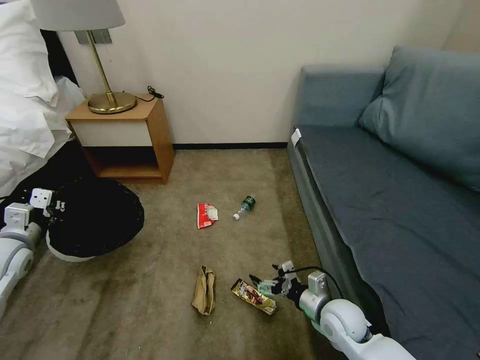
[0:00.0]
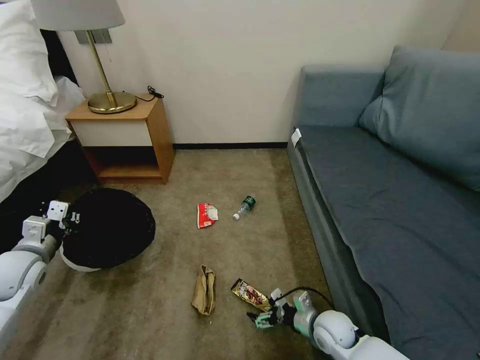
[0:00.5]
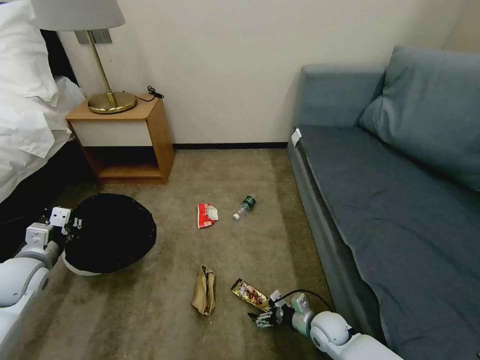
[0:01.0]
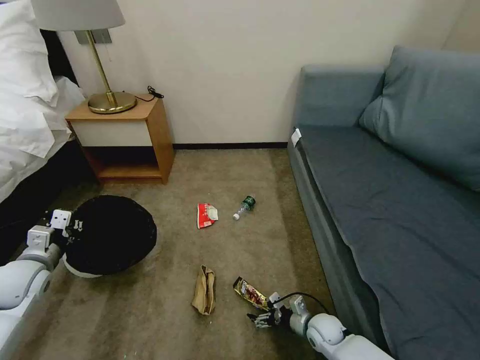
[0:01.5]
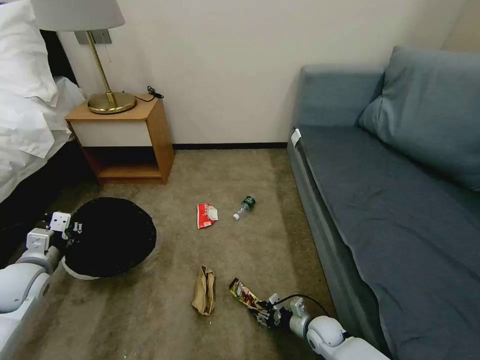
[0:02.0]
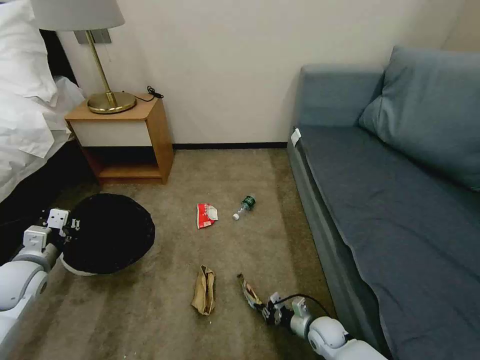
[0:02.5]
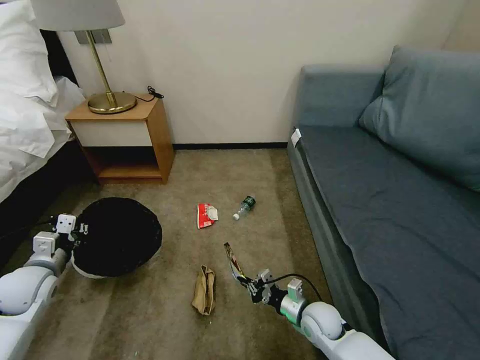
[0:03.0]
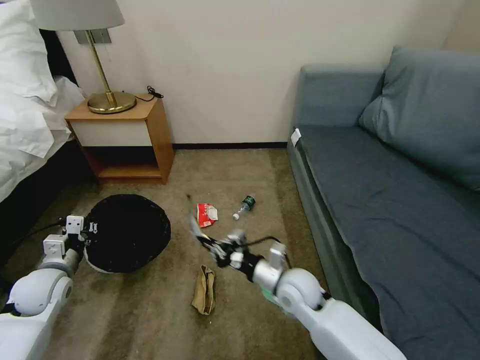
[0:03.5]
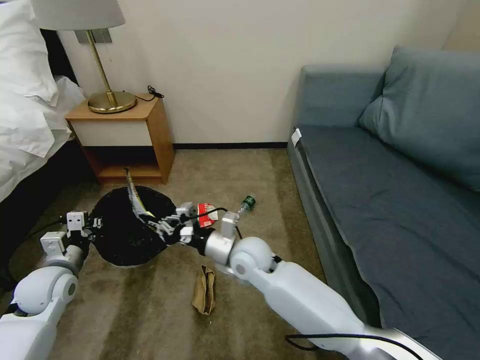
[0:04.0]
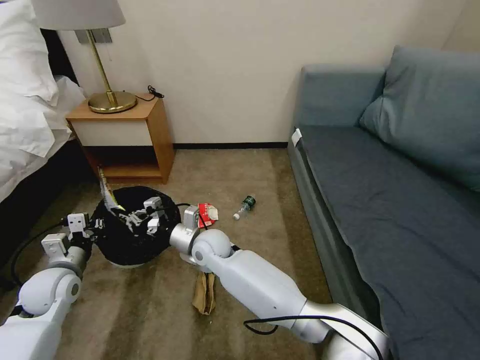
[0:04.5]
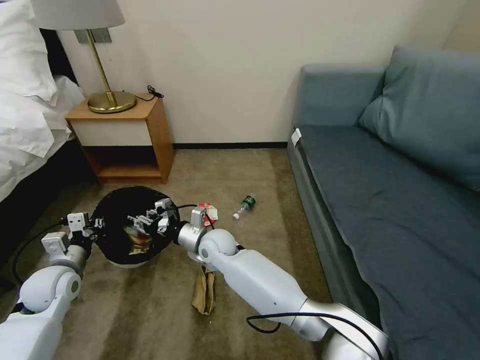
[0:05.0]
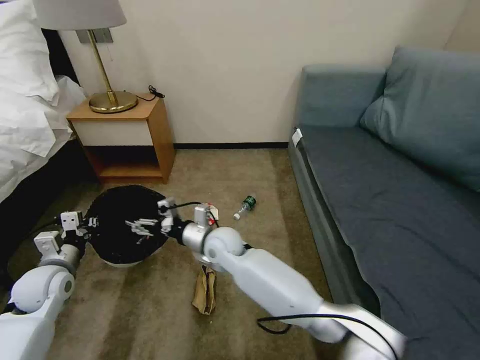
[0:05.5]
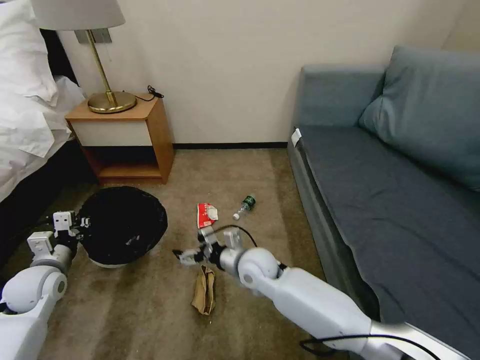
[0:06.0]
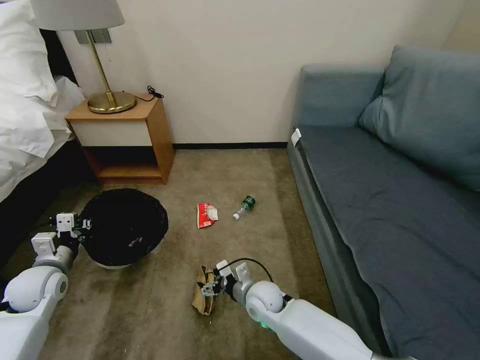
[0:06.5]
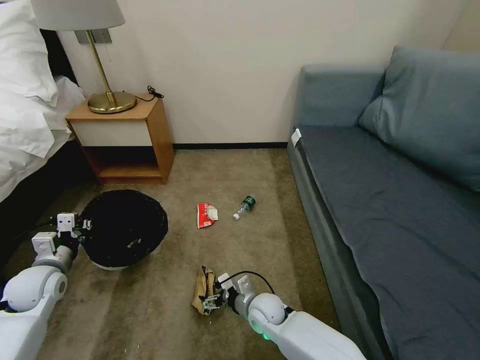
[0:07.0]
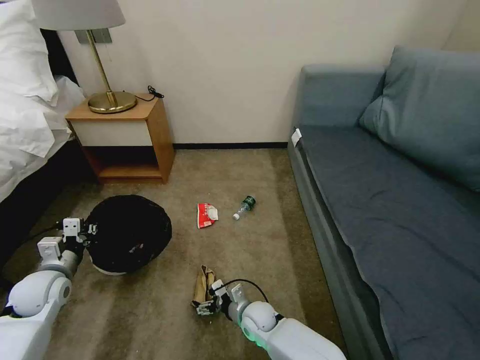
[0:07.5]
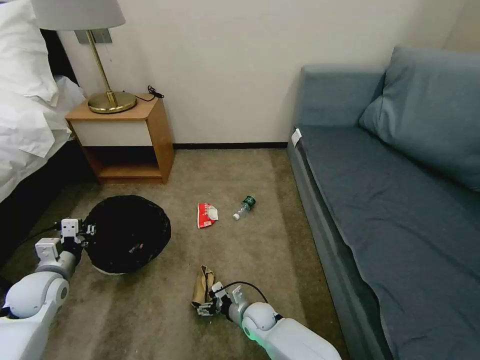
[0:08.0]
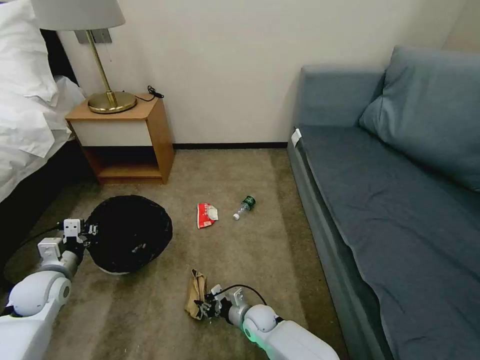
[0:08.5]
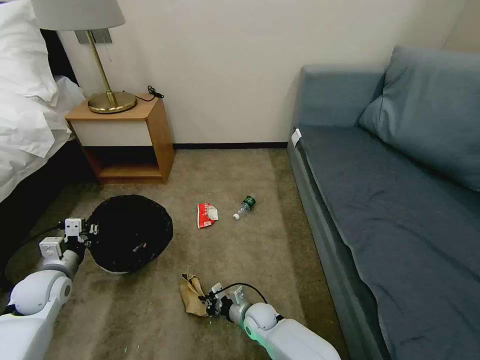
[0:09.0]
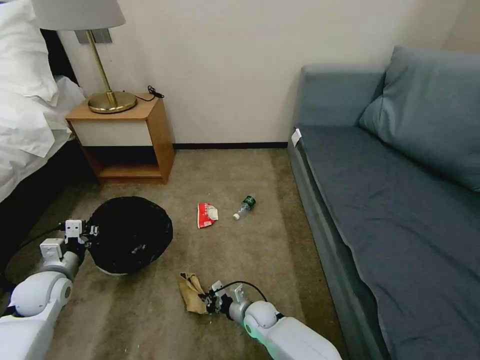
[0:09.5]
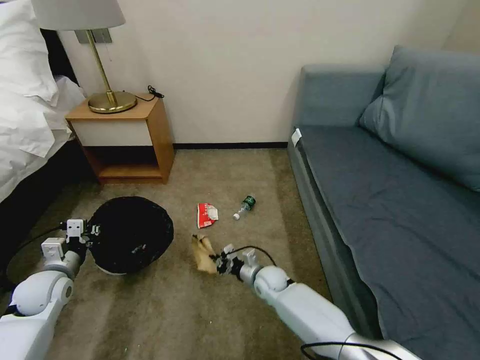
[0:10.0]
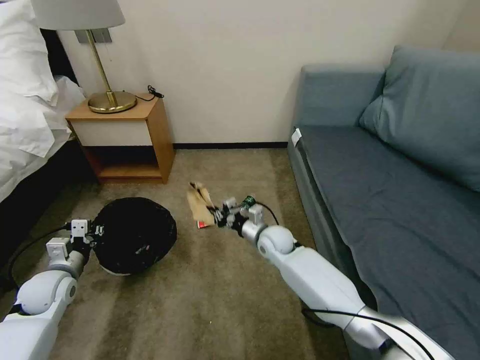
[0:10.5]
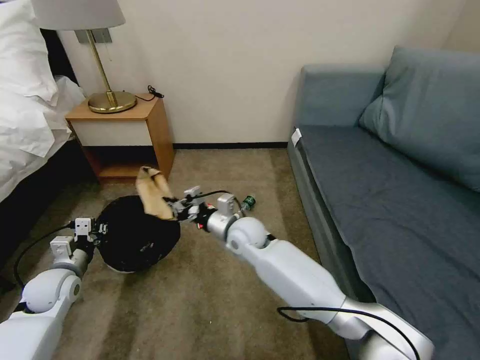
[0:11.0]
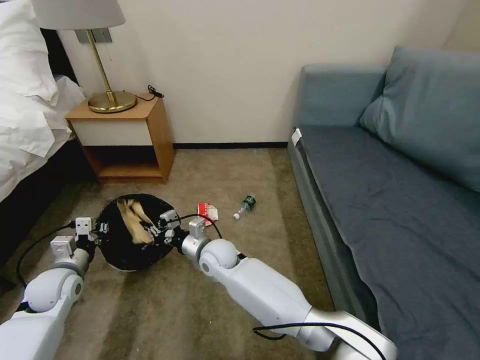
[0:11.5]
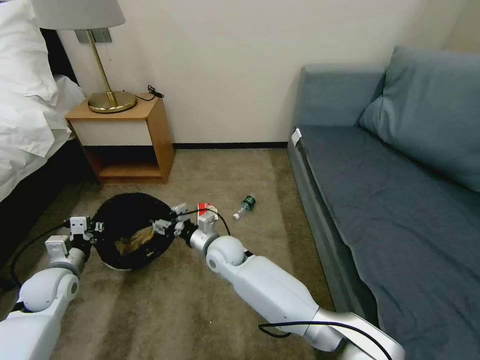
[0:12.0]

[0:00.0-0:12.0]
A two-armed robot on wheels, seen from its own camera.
Task of the whole recording: Pick up the trash bin, then pick up the garbage on the floor and place it into the trash bin.
0:00.0 to 0:02.0: The right gripper is displaced downward by approximately 15 cm, and closes up. Meanwhile the left gripper heads downward, covering about 5 cm.
0:02.0 to 0:04.0: The right gripper heads upward and to the left, covering about 35 cm, and closes its fingers. The left gripper ends up approximately 5 cm from where it was.
0:04.0 to 0:06.0: The right gripper is displaced downward by approximately 5 cm, reaches roughly 10 cm to the left, then returns, and opens up.
0:06.0 to 0:08.0: The right gripper shifts approximately 20 cm downward.
0:08.0 to 0:10.0: The right gripper shifts roughly 10 cm forward and upward, and closes up.
0:10.0 to 0:12.0: The right gripper is displaced upward and to the left by about 20 cm, and opens up.

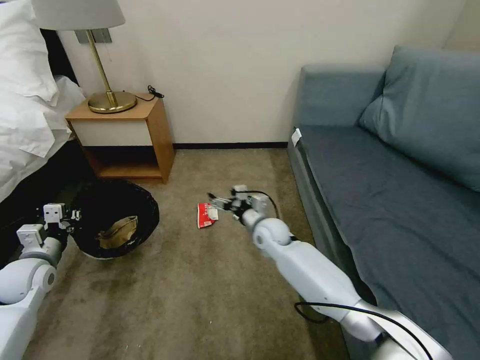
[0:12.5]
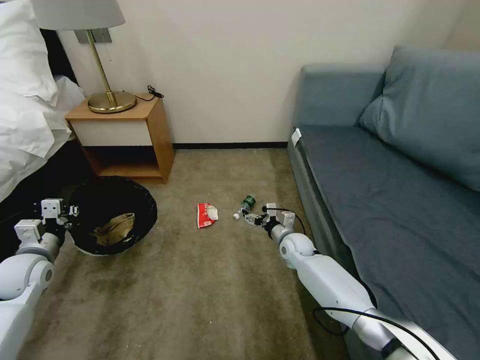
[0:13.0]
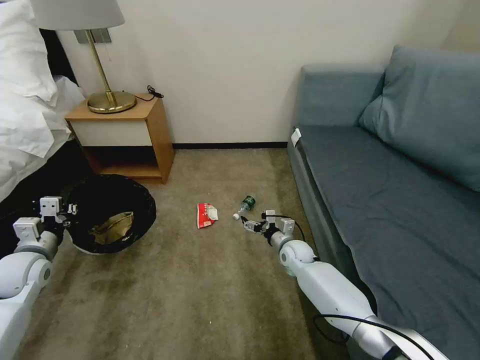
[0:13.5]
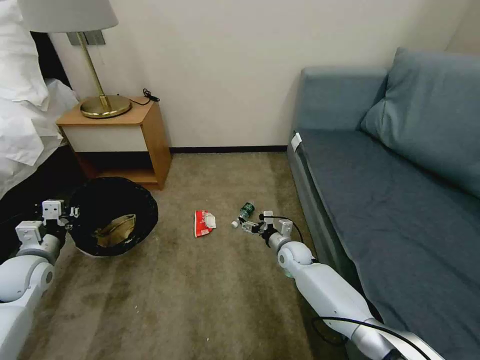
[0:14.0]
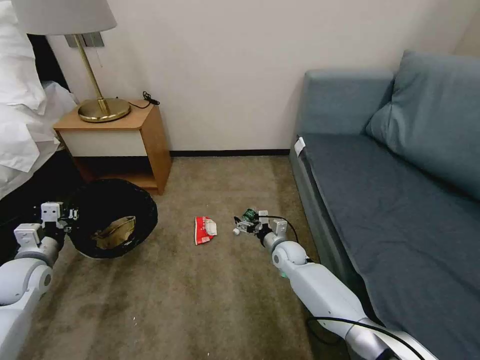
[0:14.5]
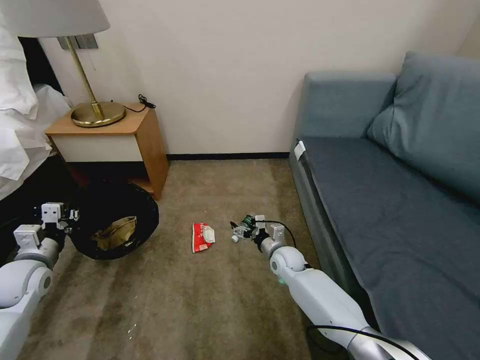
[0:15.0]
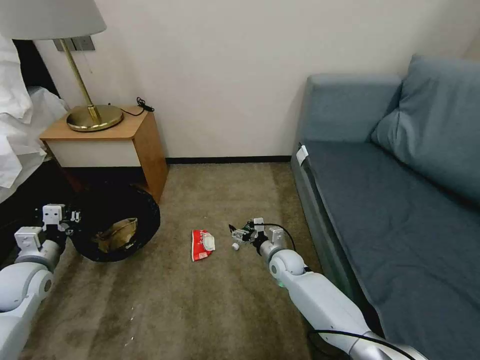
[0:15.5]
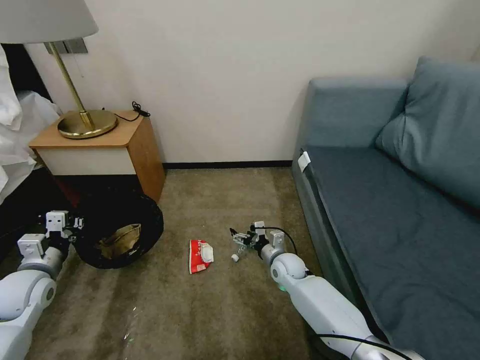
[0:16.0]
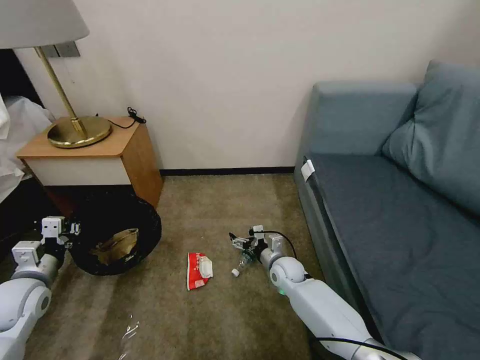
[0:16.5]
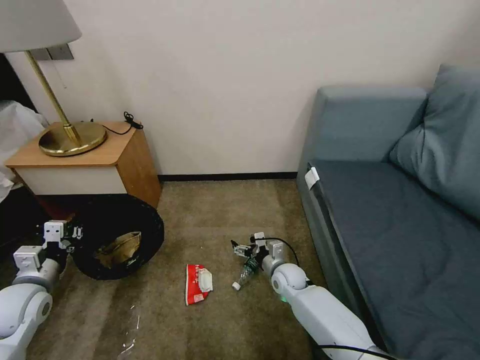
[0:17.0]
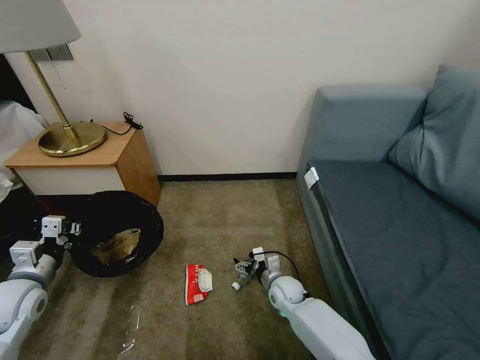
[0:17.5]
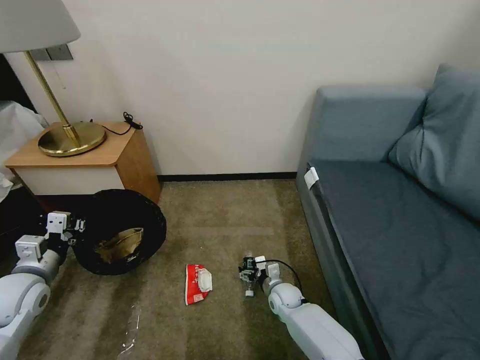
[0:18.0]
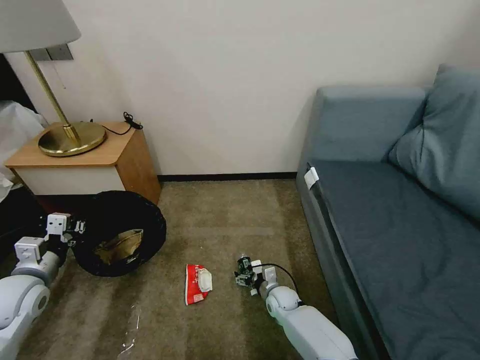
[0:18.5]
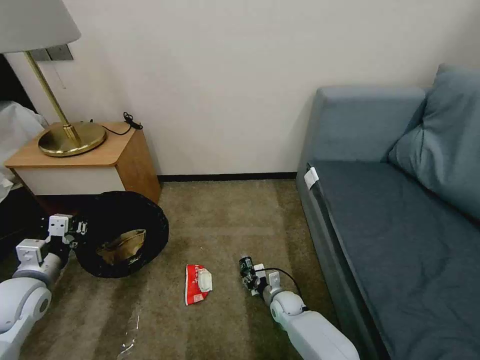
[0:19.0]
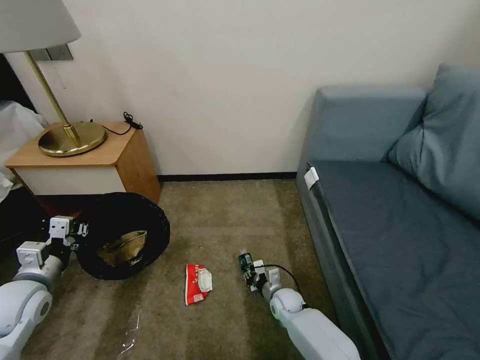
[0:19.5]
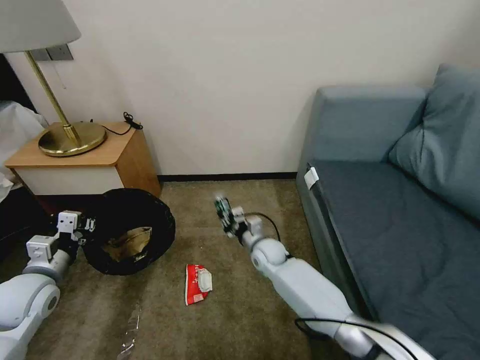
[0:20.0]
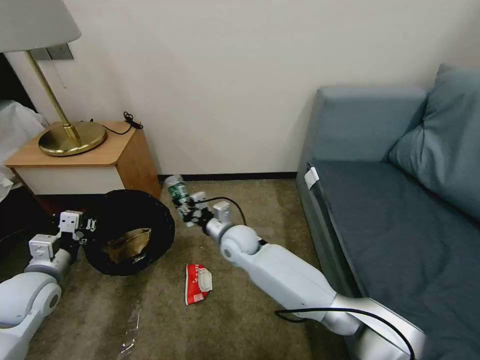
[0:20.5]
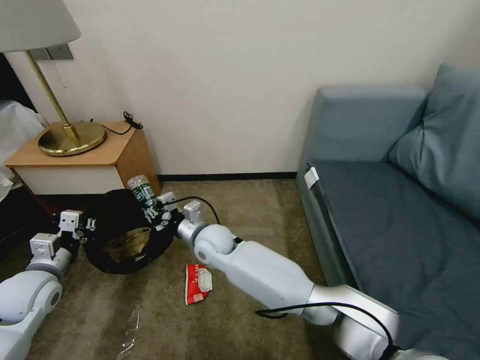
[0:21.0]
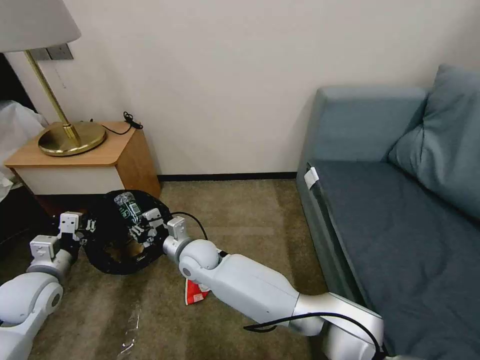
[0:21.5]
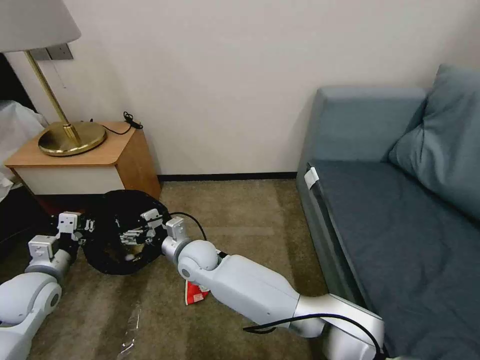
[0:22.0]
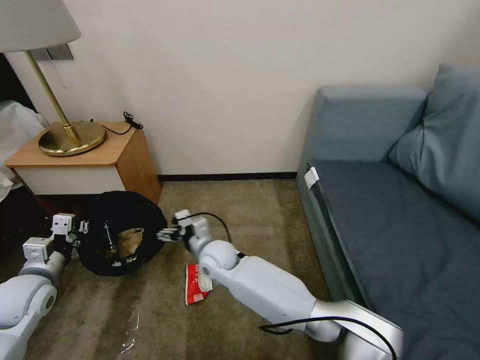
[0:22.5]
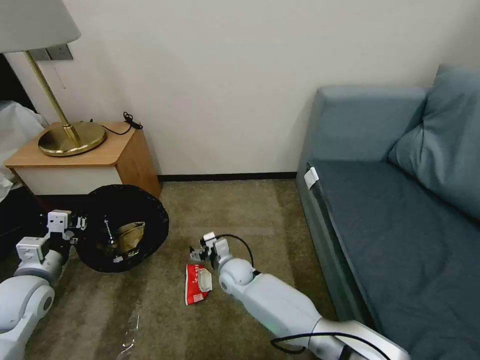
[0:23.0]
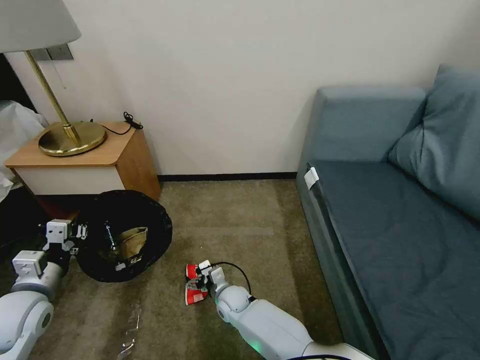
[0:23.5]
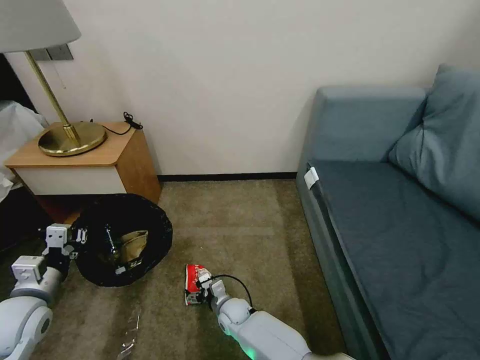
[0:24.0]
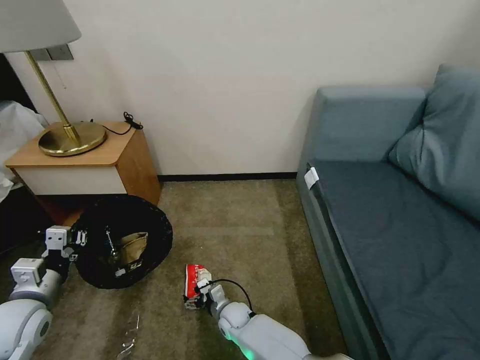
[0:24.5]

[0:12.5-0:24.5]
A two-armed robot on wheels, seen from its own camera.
Task of the whole recording: Pick up the trash bin, then pick up the garbage on the floor and place it into the trash bin.
0:12.5 to 0:14.5: The right gripper goes about 15 cm downward and to the right.
0:16.5 to 0:18.5: The right gripper shifts roughly 10 cm downward and backward.
0:18.5 to 0:20.5: The right gripper shifts some 25 cm upward and to the left, and closes.
0:20.5 to 0:22.5: The right gripper opens up.
0:22.5 to 0:24.5: The right gripper goes about 20 cm downward and backward; the left gripper is displaced backward by approximately 5 cm.

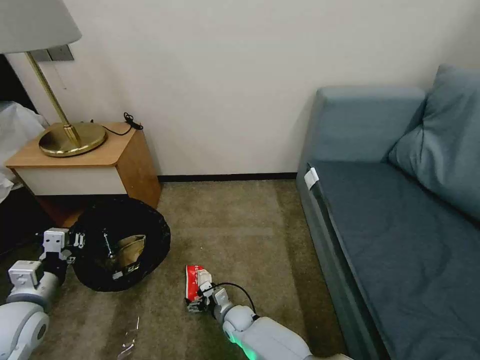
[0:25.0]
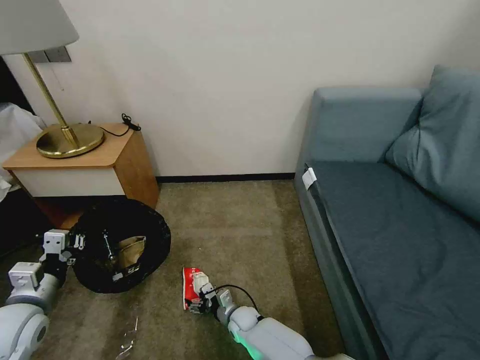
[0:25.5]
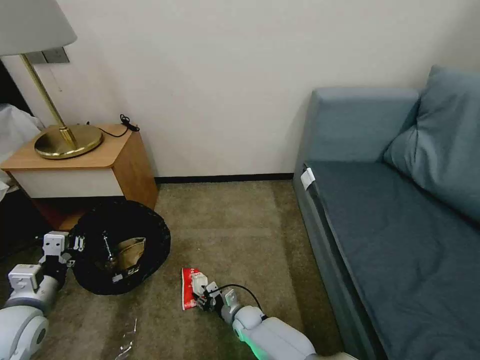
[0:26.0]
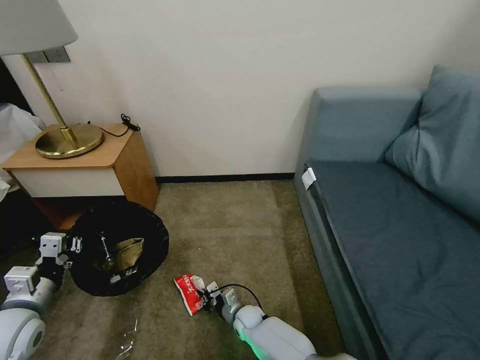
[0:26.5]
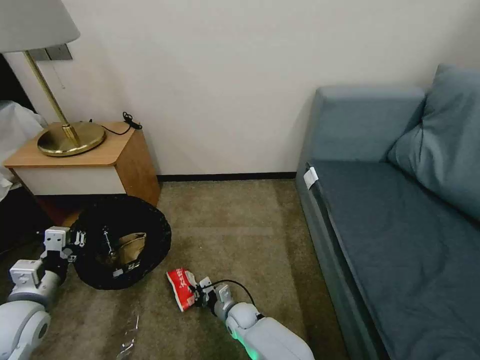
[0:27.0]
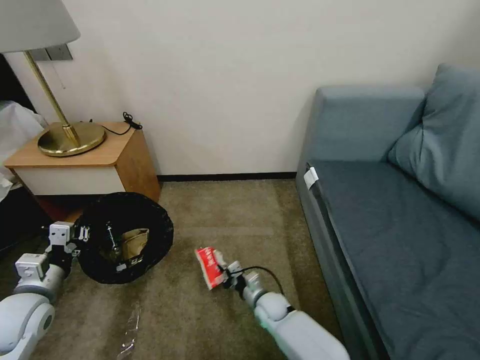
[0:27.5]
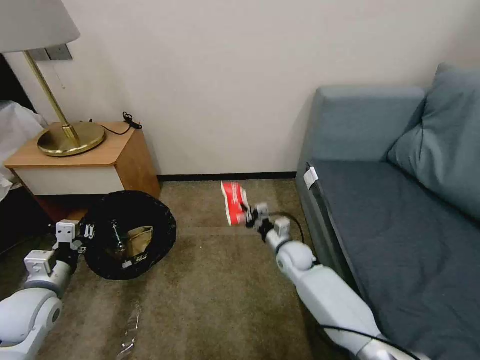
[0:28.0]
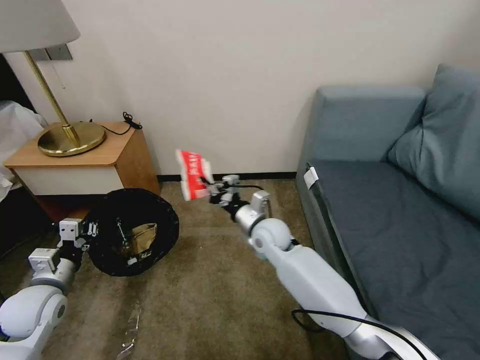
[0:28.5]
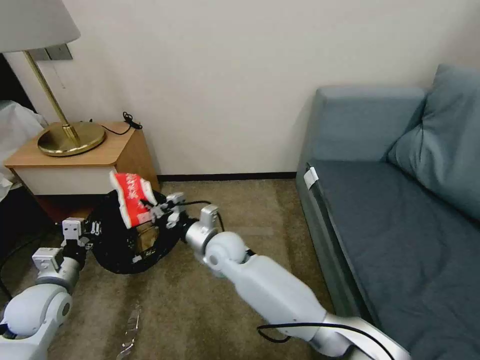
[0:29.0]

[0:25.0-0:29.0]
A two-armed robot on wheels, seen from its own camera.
Task of the whole recording: Pick up the trash bin, then pick up the garbage on the floor and place it into the trash bin.
0:25.0 to 0:27.0: The right gripper closes.
0:27.0 to 0:29.0: The right gripper travels upward by approximately 25 cm; the left gripper moves approximately 5 cm.
